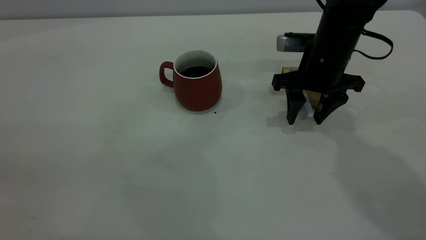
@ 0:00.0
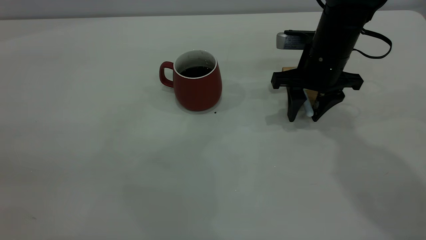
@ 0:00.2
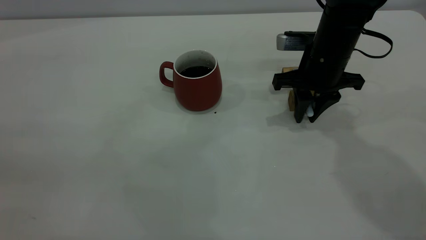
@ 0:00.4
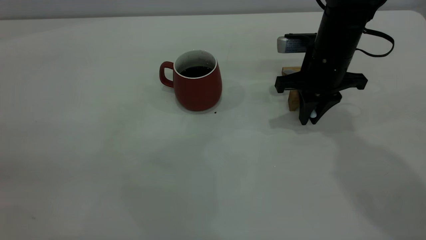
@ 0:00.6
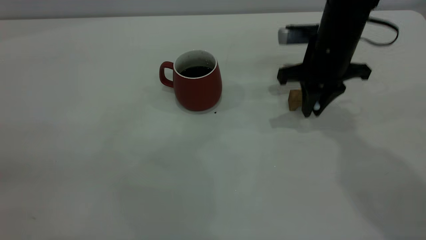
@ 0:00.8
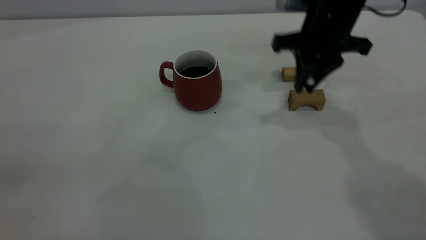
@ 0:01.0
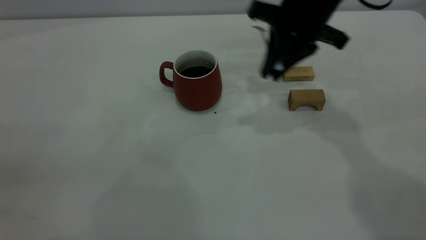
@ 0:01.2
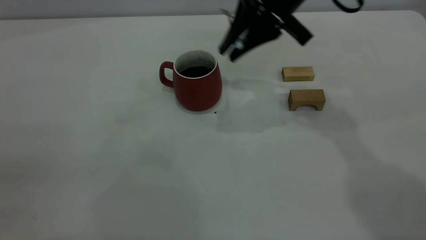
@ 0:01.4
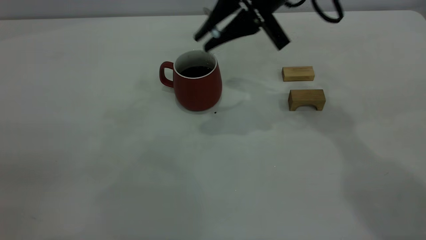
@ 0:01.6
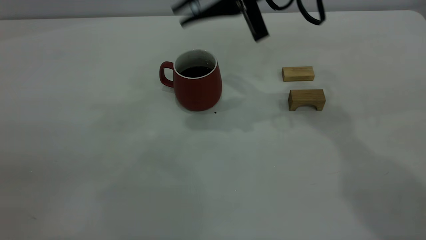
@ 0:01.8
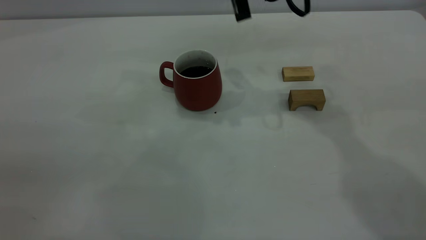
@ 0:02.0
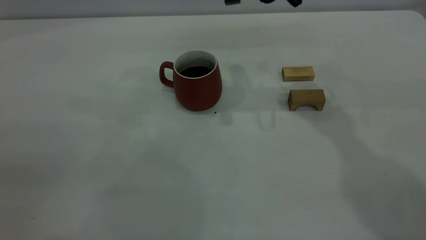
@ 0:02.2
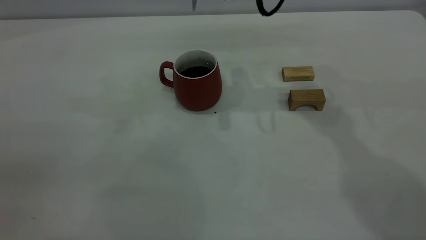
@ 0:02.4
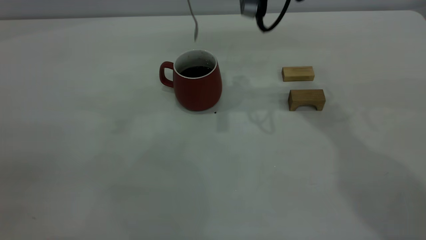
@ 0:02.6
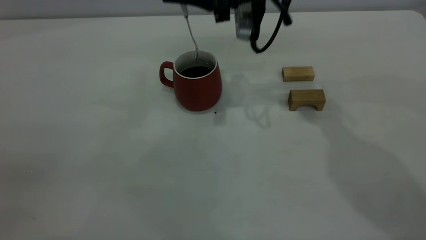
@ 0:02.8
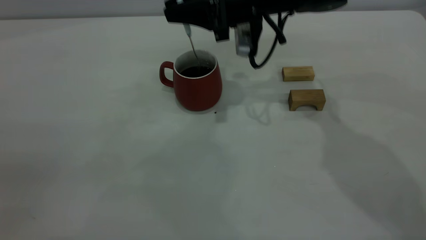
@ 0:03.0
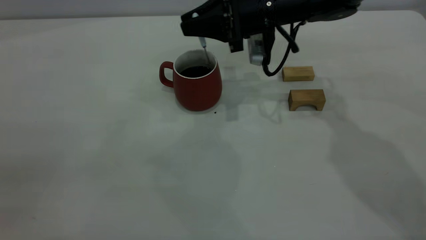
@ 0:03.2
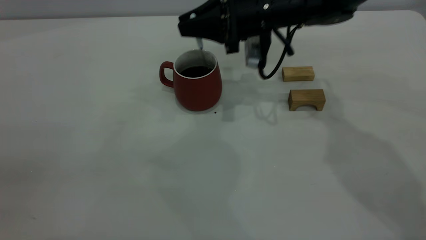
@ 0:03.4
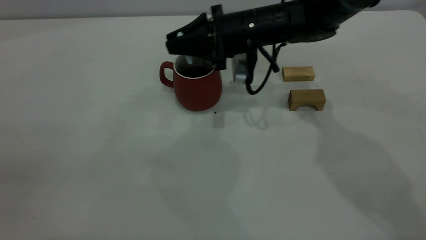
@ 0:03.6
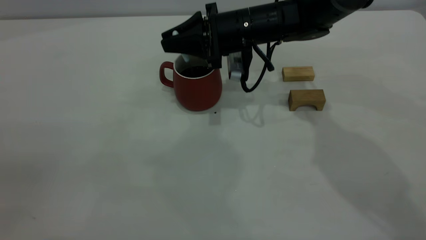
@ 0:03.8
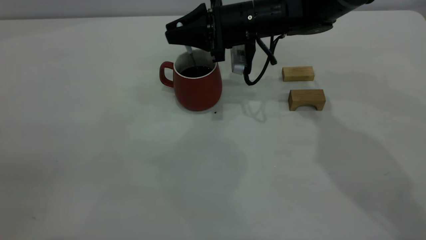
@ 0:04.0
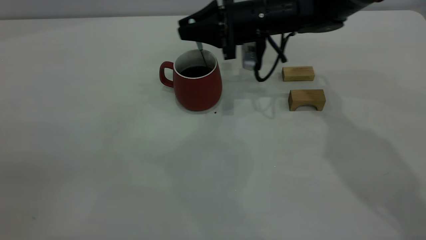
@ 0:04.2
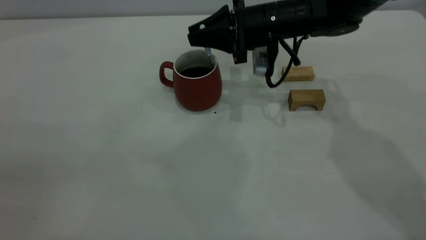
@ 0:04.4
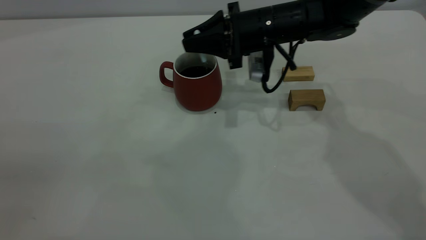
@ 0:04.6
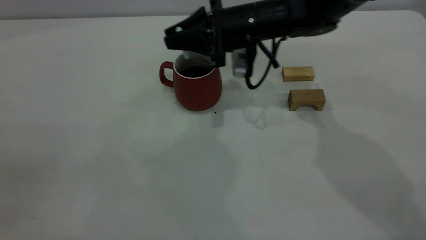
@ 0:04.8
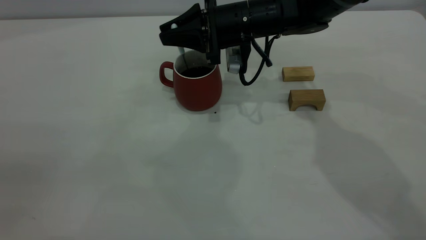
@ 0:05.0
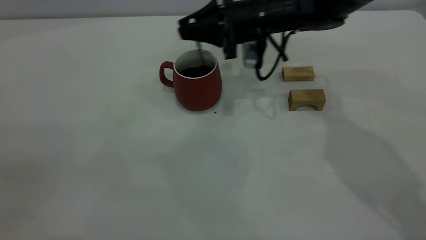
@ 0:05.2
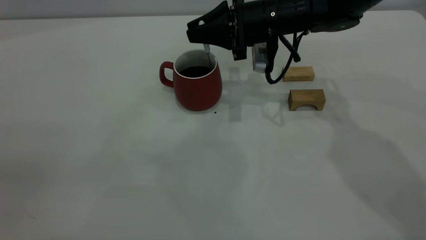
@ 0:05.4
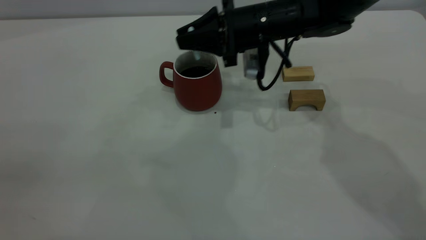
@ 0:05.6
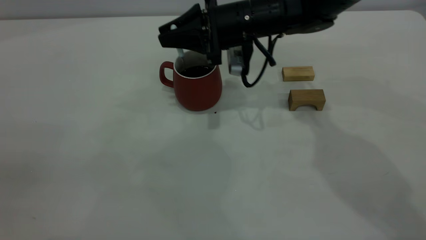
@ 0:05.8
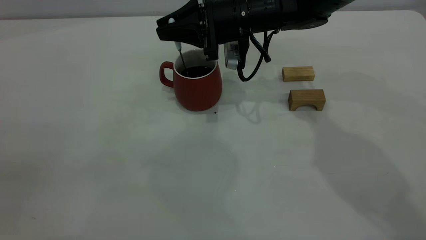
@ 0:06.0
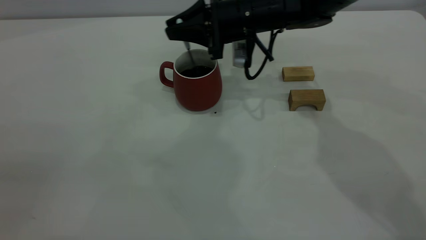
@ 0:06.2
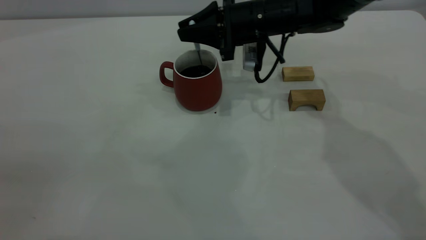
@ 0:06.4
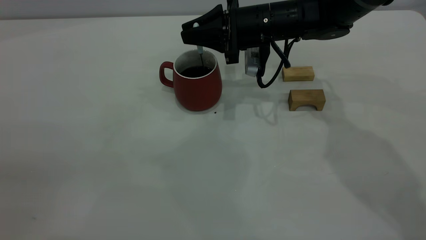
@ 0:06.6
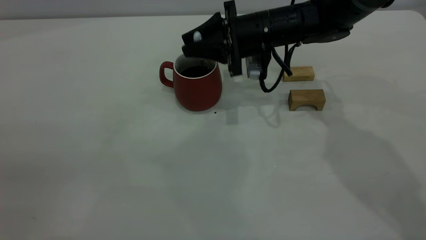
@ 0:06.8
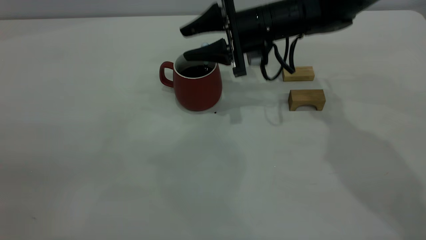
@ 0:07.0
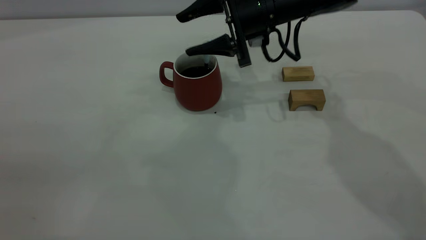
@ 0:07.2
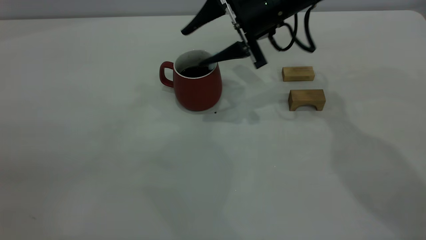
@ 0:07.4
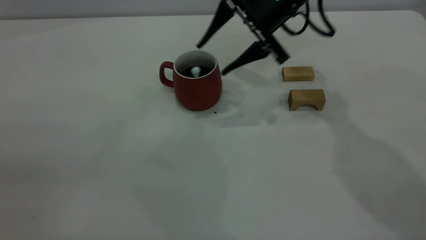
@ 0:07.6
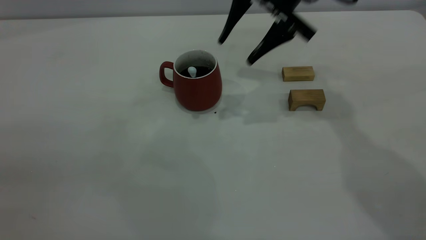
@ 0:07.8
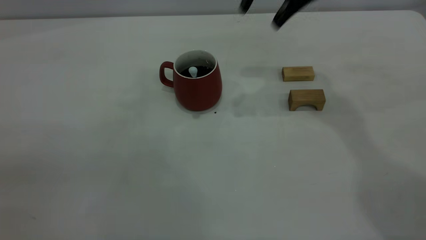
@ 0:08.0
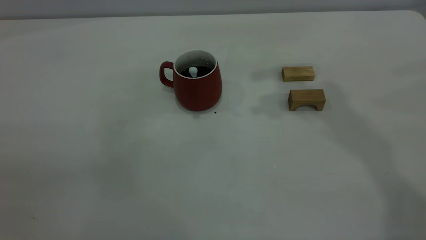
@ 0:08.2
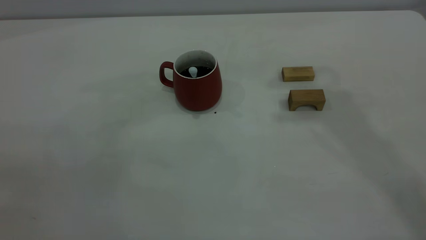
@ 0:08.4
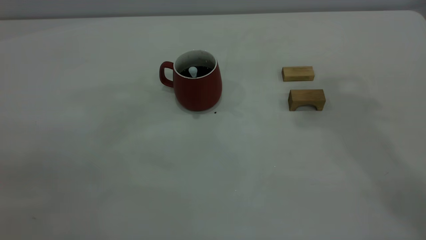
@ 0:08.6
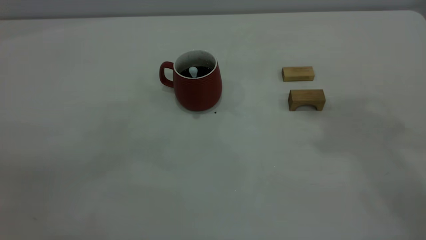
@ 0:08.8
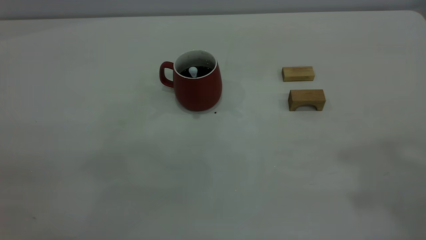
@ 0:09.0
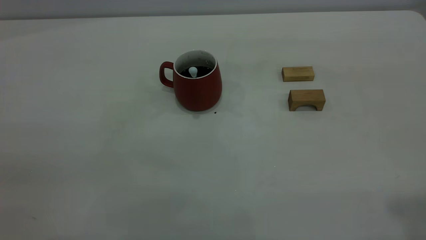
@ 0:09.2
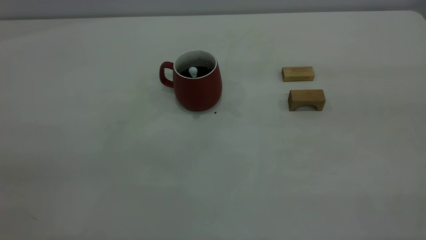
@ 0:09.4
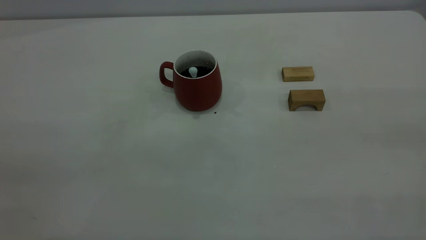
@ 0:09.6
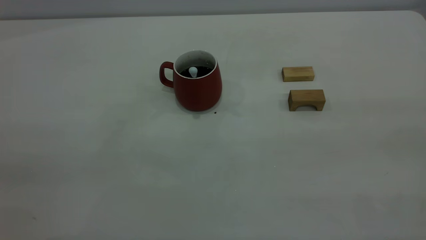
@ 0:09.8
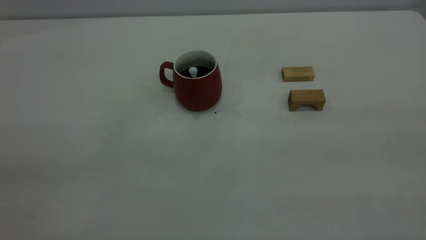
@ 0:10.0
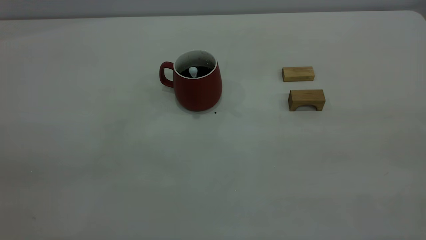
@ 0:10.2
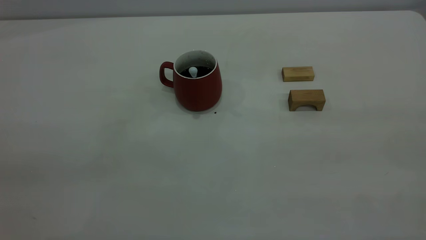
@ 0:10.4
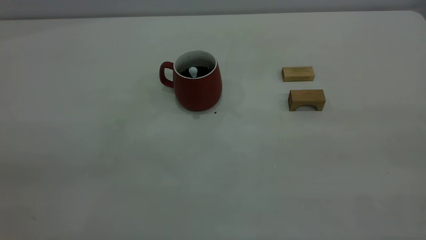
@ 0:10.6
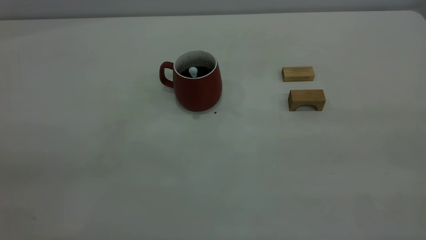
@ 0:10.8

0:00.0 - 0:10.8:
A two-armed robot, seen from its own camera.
Step, 0:01.2 - 0:07.4: Stir the coffee in the cup.
0:00.0 - 0:01.6: The right gripper travels upward and to the left by approximately 15 cm, and closes.
0:01.6 - 0:03.0: The right gripper shifts roughly 10 cm downward and forward.
0:03.0 - 0:06.2: The grippers make only small movements.
0:06.2 - 0:07.8: The right gripper travels upward and to the right by some 10 cm, and opens.
0:07.8 - 0:09.2: The right gripper shifts about 40 cm backward, upward and to the right.
